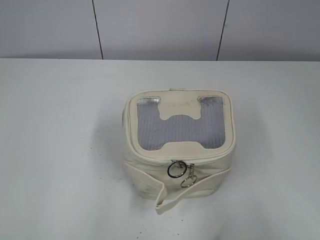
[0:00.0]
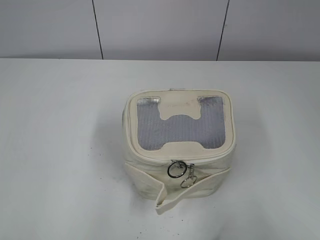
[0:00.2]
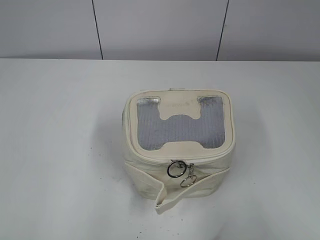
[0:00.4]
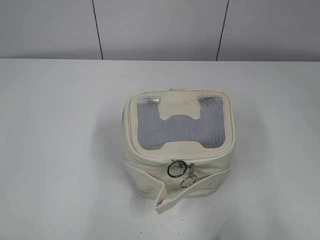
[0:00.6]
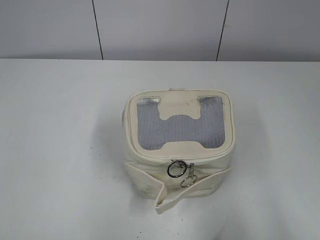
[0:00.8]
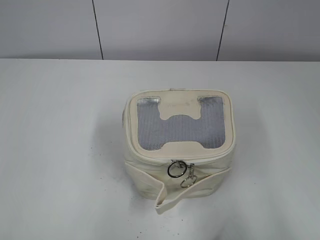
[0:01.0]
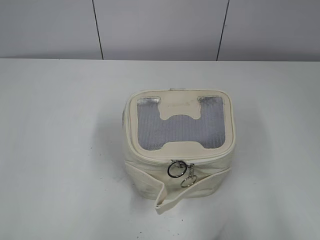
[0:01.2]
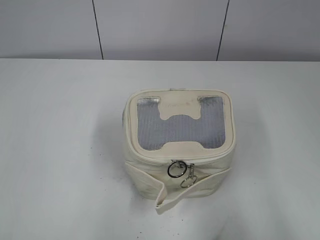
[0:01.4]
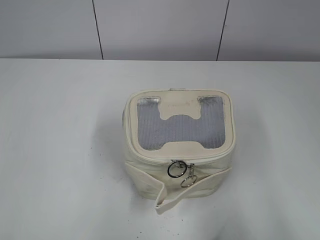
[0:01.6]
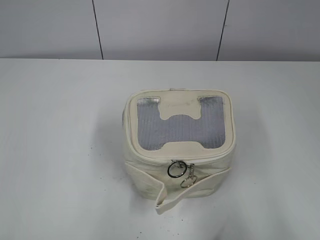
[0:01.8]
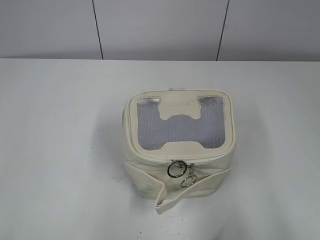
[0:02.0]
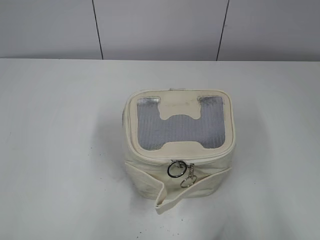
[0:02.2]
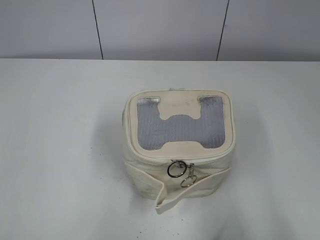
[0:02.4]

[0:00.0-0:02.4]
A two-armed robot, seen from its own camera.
0:01.2 to 0:02.4: Both grippers stay put.

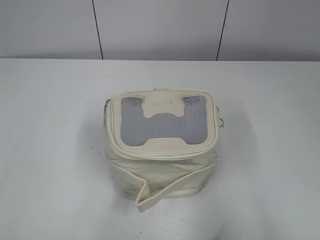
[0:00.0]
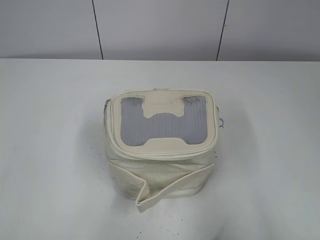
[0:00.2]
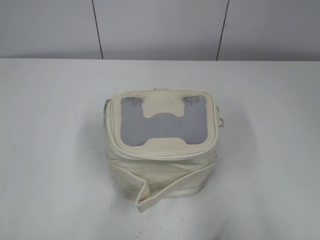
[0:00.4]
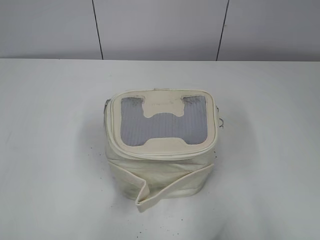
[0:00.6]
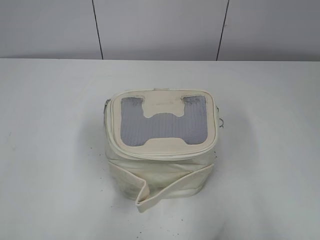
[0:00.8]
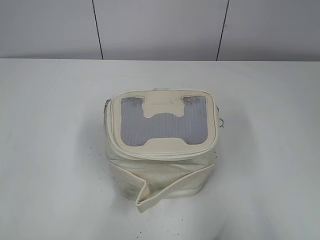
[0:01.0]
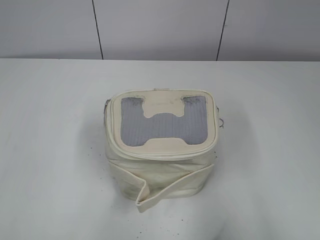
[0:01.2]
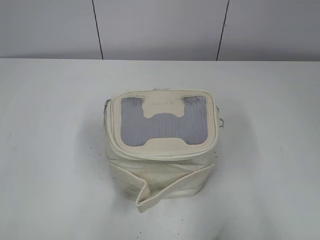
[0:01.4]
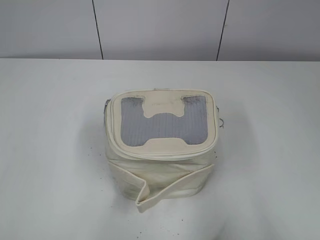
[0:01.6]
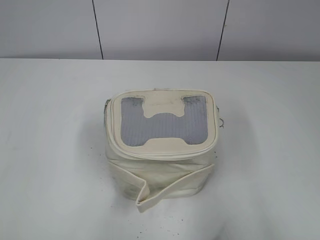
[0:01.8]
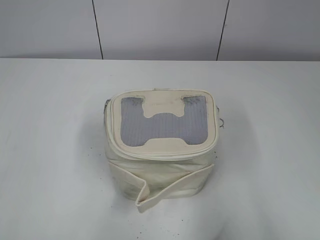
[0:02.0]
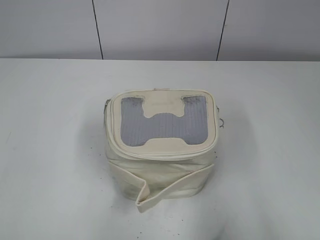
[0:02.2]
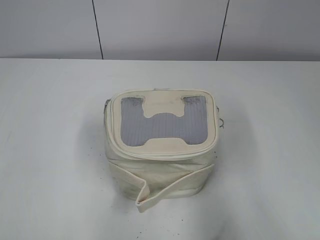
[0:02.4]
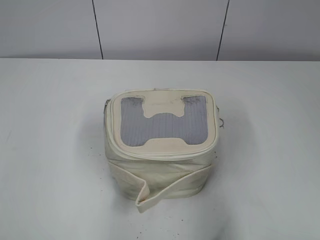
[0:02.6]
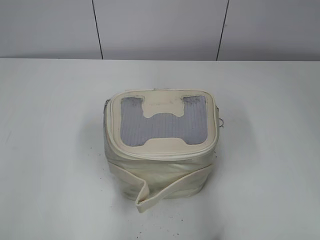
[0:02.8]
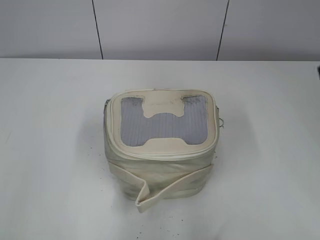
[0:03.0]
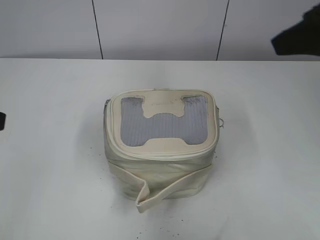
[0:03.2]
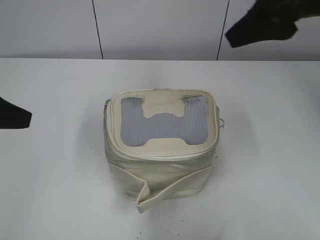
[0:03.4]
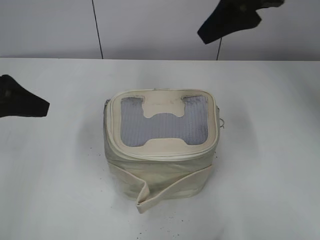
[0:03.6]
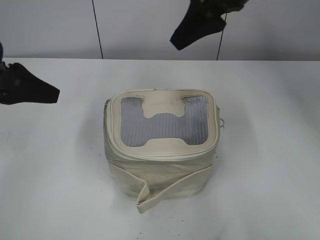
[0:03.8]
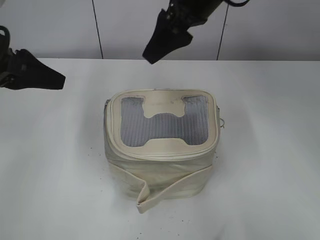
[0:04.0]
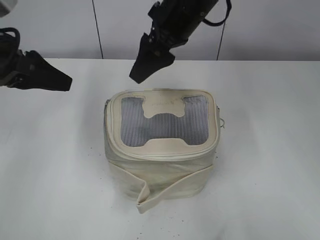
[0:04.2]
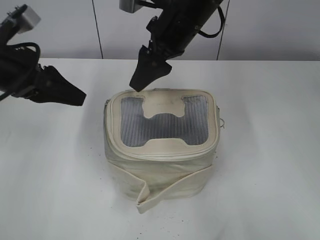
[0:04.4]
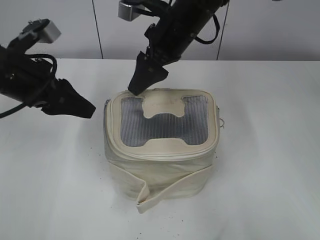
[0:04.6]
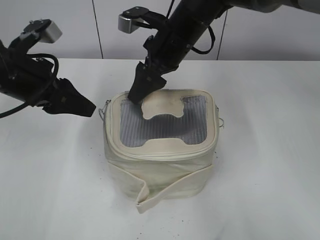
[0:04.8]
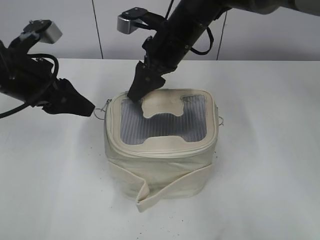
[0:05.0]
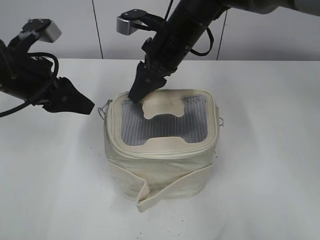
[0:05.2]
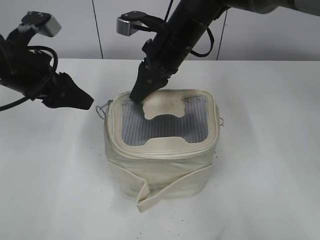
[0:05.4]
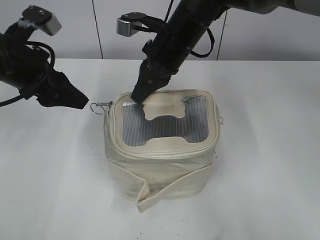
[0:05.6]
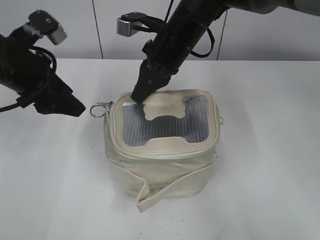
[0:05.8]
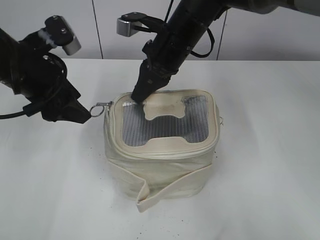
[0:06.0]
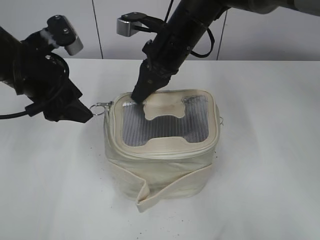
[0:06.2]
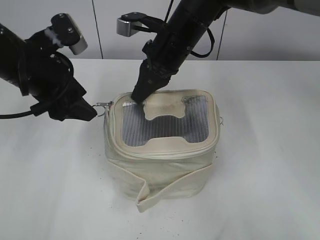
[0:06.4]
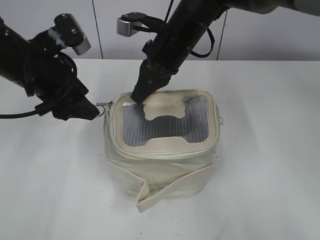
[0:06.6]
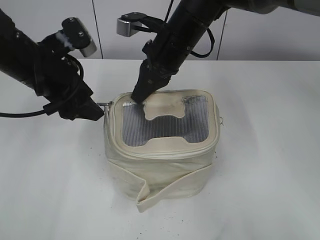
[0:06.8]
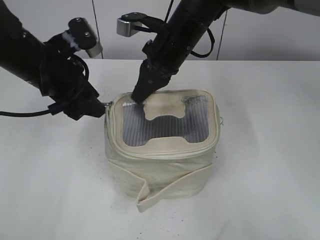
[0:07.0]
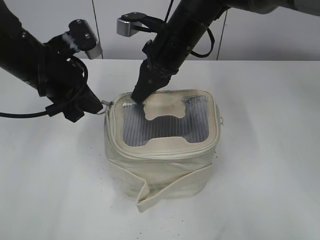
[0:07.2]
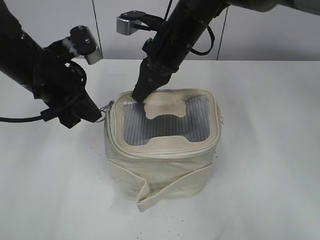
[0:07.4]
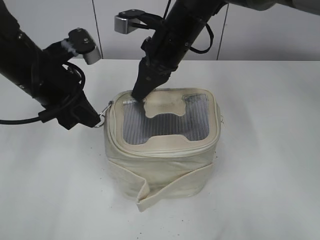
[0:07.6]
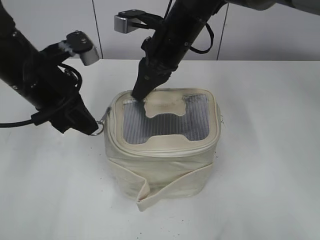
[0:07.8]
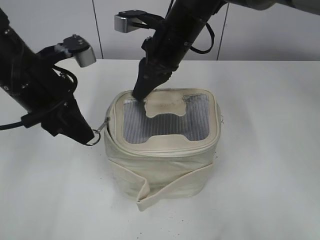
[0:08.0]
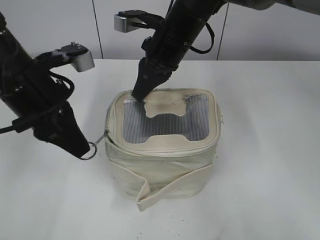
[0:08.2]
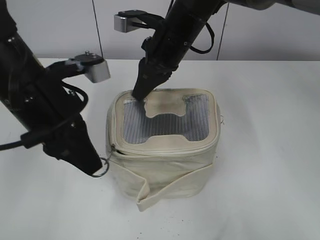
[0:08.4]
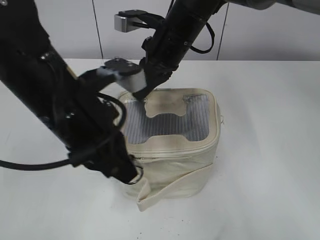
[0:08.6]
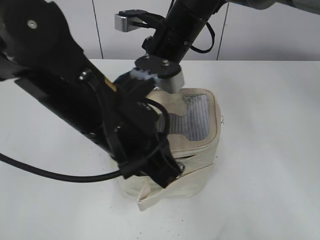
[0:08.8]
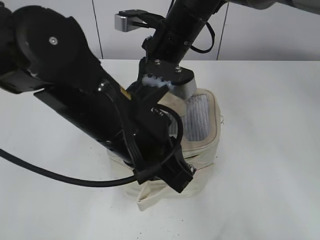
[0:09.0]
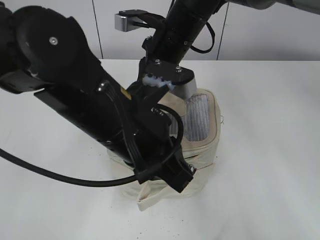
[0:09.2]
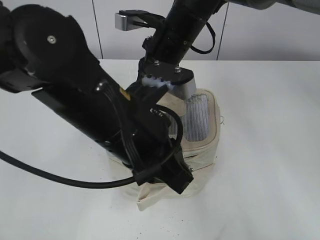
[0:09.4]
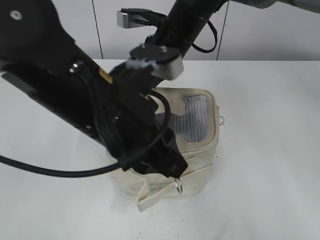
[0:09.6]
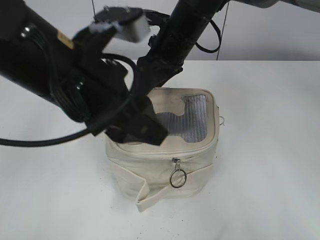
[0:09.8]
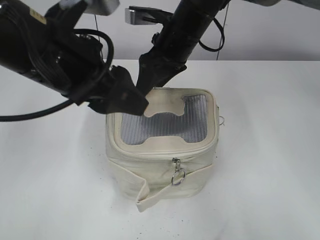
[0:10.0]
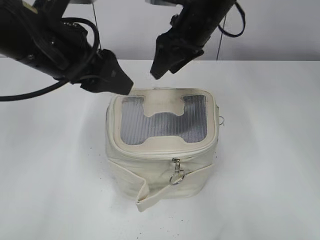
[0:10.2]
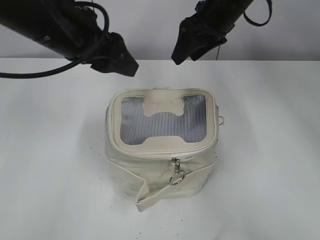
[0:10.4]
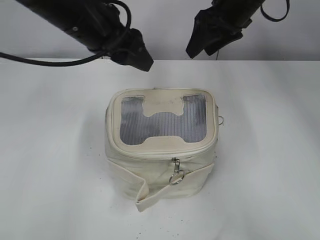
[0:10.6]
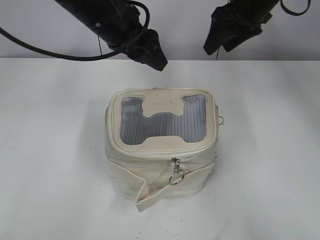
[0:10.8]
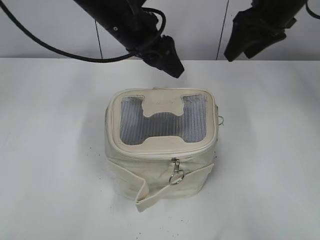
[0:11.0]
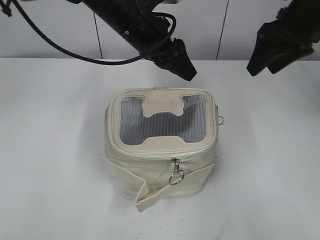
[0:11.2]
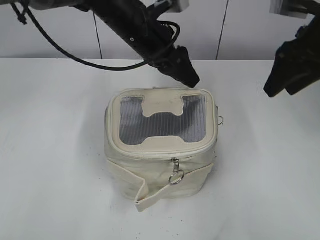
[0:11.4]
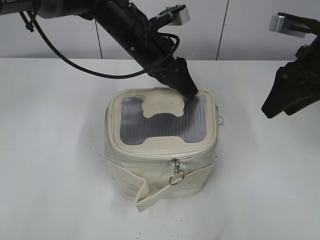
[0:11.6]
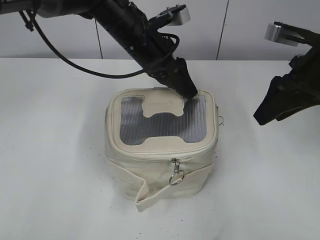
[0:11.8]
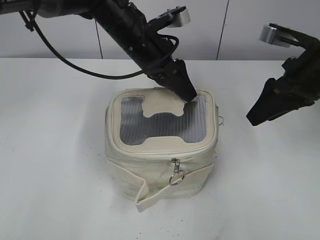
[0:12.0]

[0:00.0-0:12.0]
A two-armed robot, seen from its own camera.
Step, 0:00.0 to 0:09.4: Zip up the bag with your left hand.
0:01.6 to 0:03.0: The left gripper shifts some 10 cm forward. Meanwhile the right gripper shifts about 15 cm forward and upward.
0:03.0 to 0:04.4: The left gripper goes some 20 cm forward. Meanwhile the right gripper heads forward and to the left, covering roughly 30 cm.
0:04.4 to 0:06.0: The right gripper closes.
0:06.0 to 0:07.6: The left gripper closes.
0:07.6 to 0:09.0: The left gripper moves to the right and backward, about 15 cm.
0:09.0 to 0:10.4: The right gripper shifts approximately 5 cm to the right, and opens. Meanwhile the left gripper goes some 15 cm forward, to the left and upward, and opens up.
0:10.4 to 0:12.0: The left gripper moves forward, to the right and downward, some 15 cm, while the right gripper moves to the right and backward, some 20 cm.

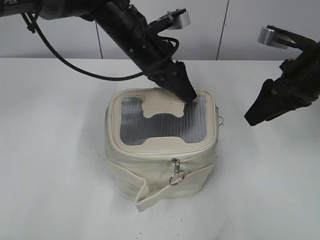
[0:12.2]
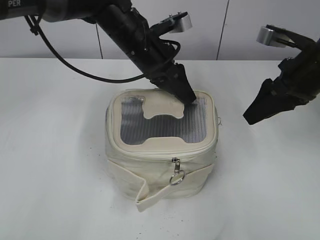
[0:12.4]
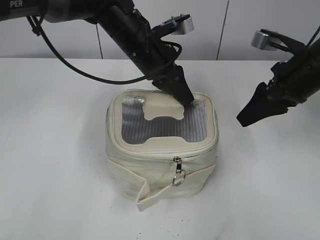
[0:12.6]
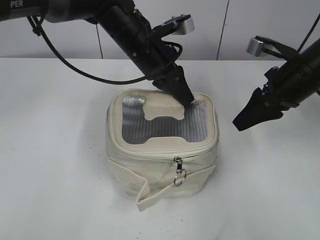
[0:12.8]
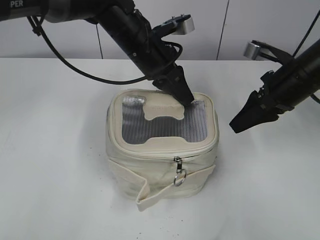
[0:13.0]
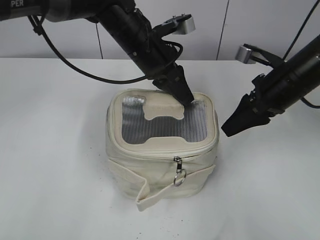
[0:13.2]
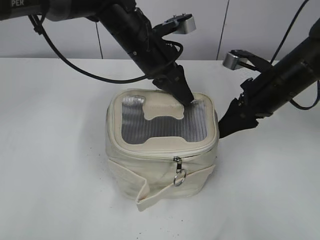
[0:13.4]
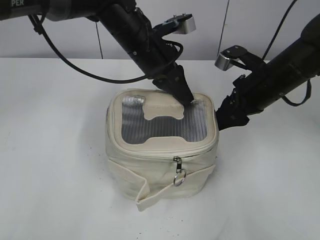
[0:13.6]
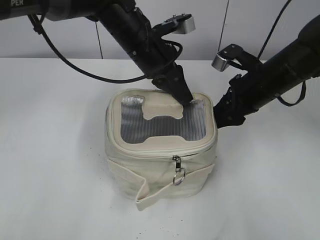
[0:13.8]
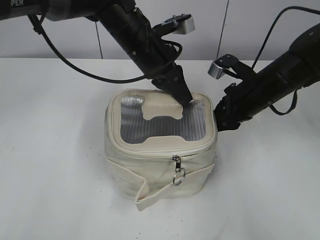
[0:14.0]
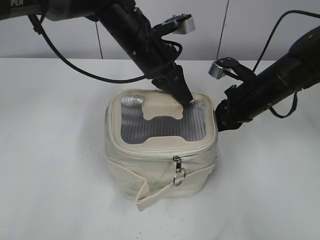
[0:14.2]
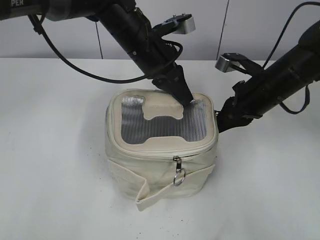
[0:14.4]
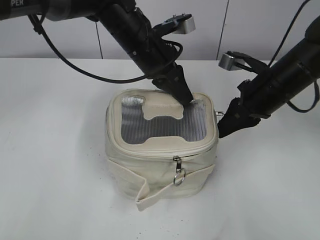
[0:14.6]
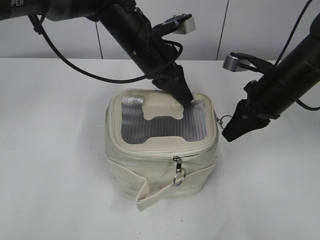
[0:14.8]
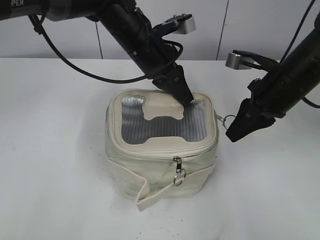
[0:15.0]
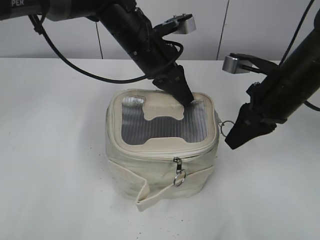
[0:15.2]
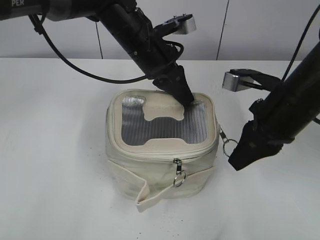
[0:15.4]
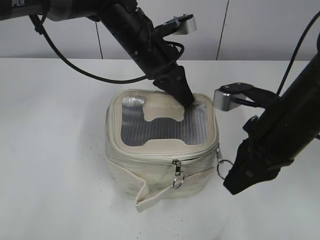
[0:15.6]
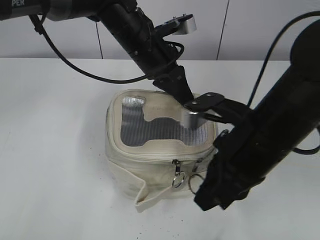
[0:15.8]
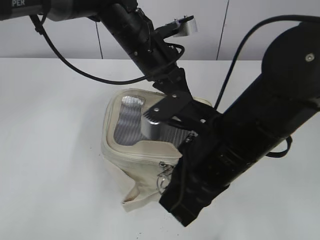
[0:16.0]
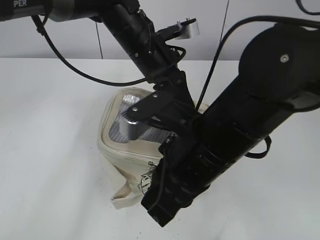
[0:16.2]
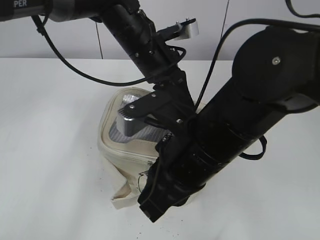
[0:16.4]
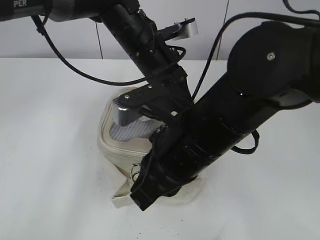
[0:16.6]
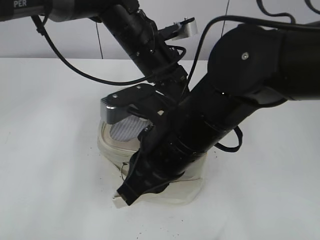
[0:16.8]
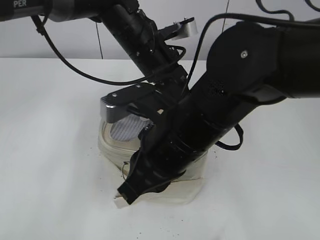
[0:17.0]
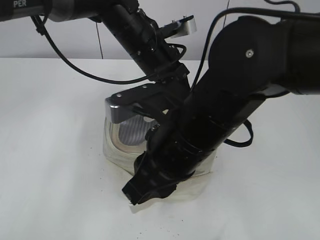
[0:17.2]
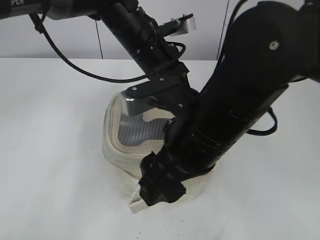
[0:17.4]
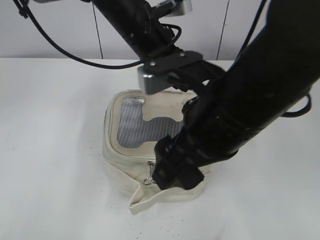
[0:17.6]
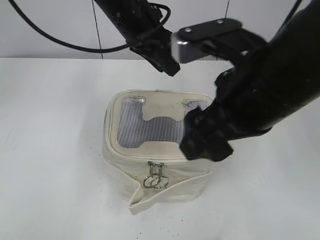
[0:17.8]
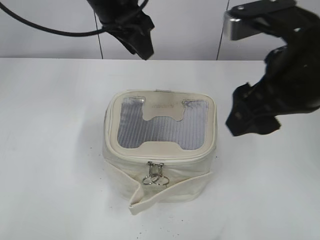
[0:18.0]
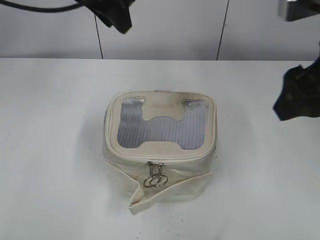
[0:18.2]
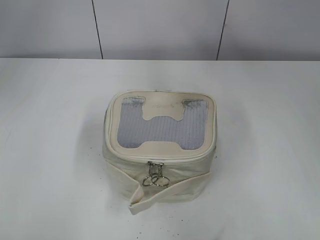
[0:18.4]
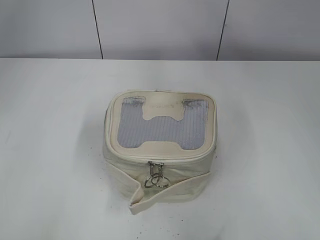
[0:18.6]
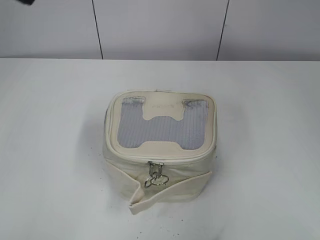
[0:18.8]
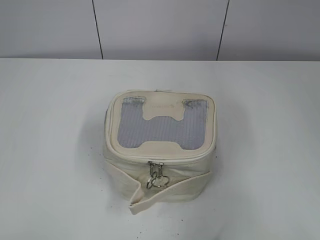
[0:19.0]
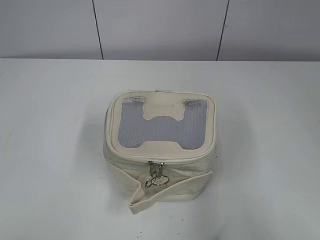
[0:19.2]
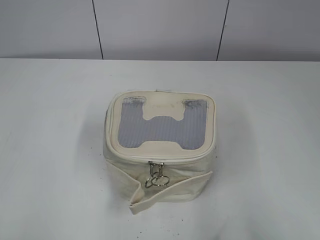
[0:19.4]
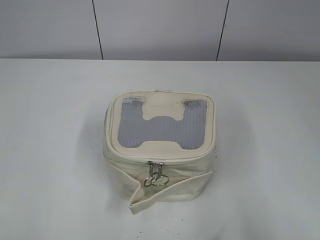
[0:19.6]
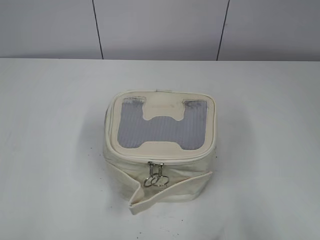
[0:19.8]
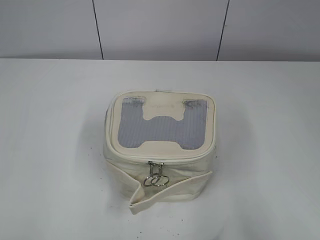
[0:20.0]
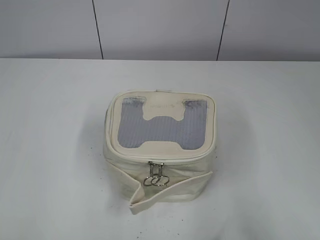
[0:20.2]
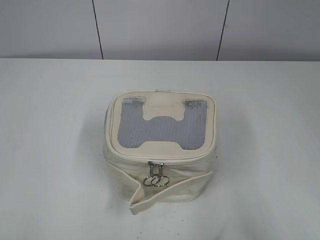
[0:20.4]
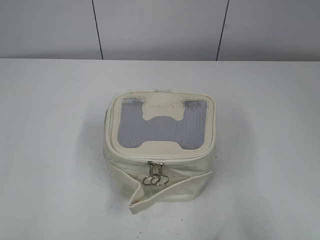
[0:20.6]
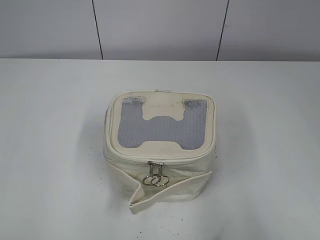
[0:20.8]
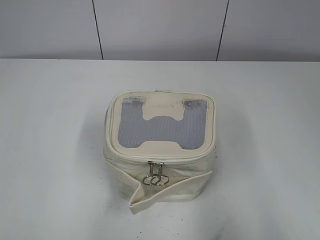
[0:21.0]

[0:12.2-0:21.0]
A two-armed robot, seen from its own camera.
Step, 0:12.2 to 0:17.4: Zip up the bag with your right hand.
0:12.2 to 0:13.6: The right gripper shifts some 5 cm downward. Meanwhile the left gripper closes its fingers.
0:13.6 to 0:15.2: The right gripper closes its fingers.
0:15.2 to 0:16.6: The right gripper goes some 20 cm to the left and backward.
0:16.6 to 0:18.0: The left gripper moves upward, roughly 10 cm, and opens, while the right gripper shifts some 10 cm upward and to the right, and opens its fingers.
0:18.0 to 0:19.6: The right gripper heads backward and to the right, covering roughly 25 cm. Meanwhile the left gripper heads backward and to the left, covering approximately 40 cm.
